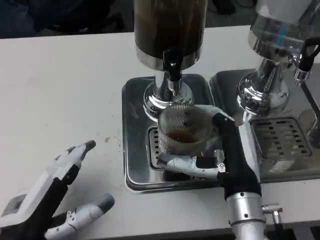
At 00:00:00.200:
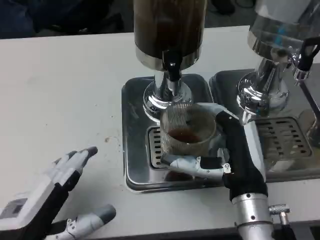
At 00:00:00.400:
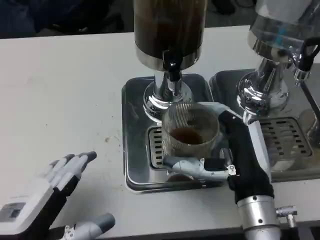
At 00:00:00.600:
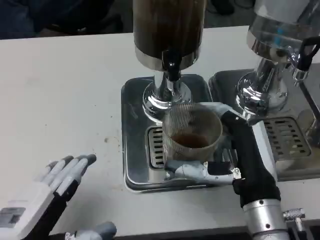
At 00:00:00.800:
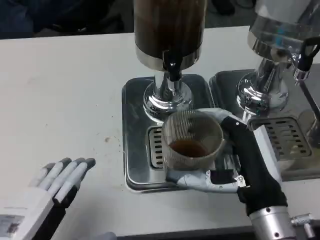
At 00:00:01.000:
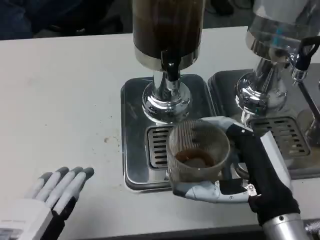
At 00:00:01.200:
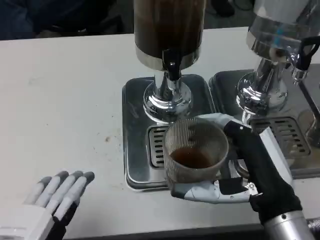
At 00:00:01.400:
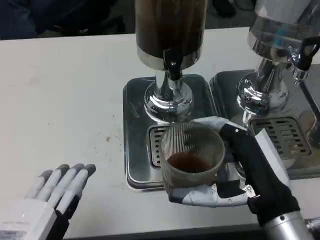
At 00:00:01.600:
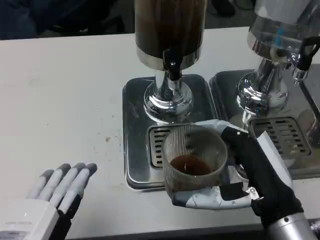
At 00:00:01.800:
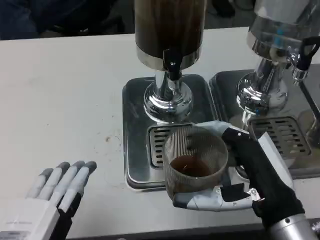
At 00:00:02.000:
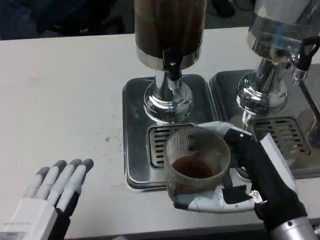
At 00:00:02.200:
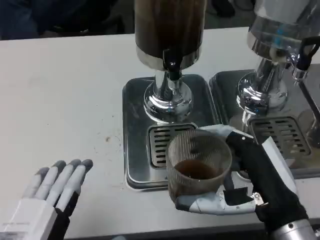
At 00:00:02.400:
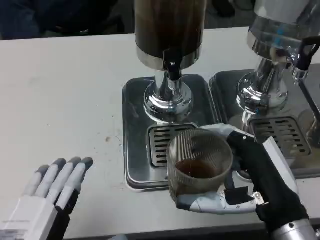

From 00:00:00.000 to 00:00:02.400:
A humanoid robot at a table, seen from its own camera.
Task of the whole recording: Grasp the cup under the faucet to collect the drink, then remove the cup.
From 00:00:00.000 to 00:00:01.200: The right hand moves some 10 cm; the left hand shifts about 5 cm backward.
From 00:00:01.200 to 00:00:02.400: The hands move only a little.
